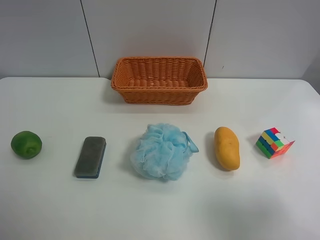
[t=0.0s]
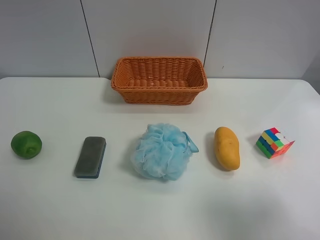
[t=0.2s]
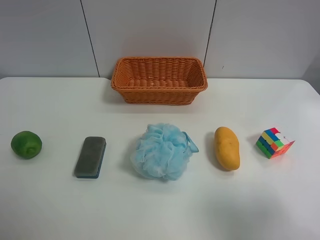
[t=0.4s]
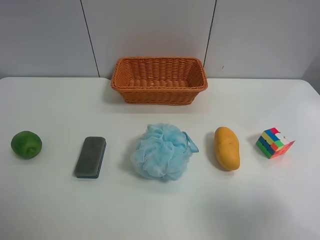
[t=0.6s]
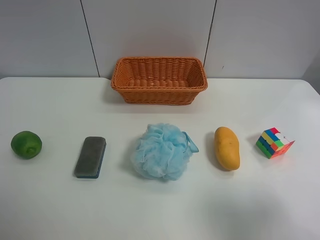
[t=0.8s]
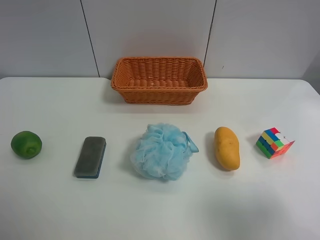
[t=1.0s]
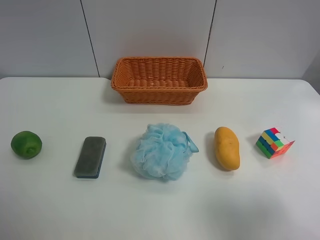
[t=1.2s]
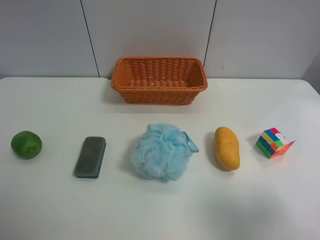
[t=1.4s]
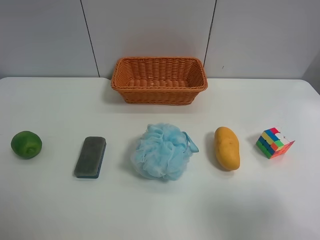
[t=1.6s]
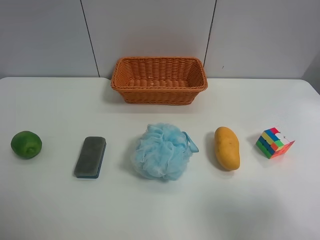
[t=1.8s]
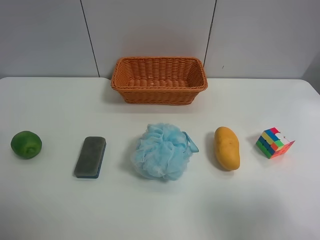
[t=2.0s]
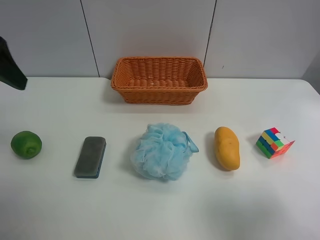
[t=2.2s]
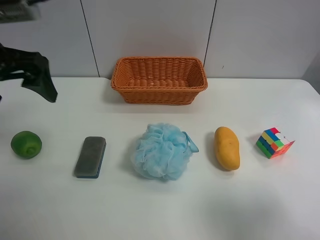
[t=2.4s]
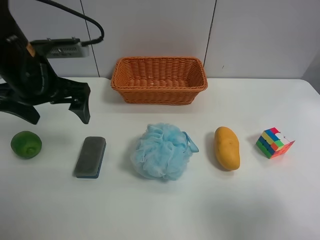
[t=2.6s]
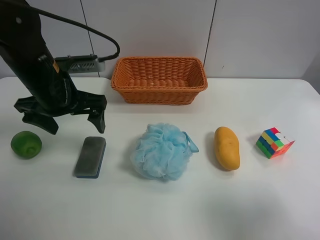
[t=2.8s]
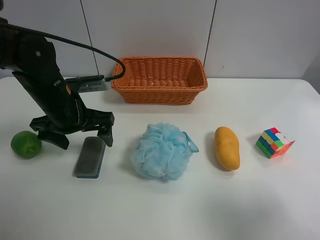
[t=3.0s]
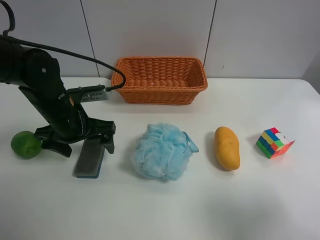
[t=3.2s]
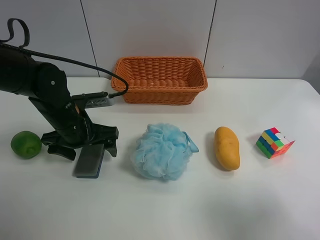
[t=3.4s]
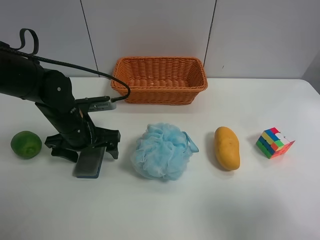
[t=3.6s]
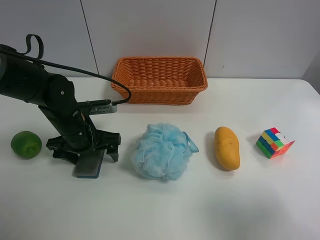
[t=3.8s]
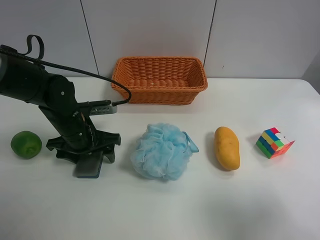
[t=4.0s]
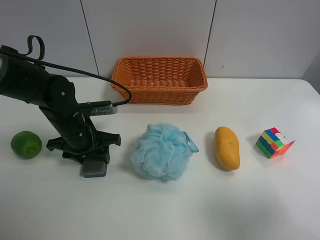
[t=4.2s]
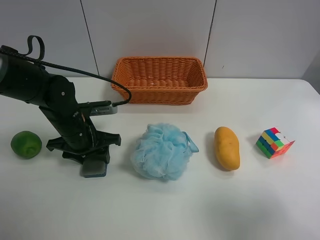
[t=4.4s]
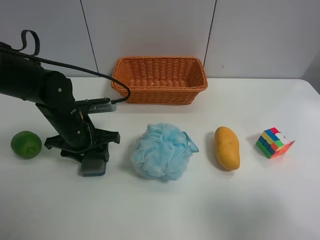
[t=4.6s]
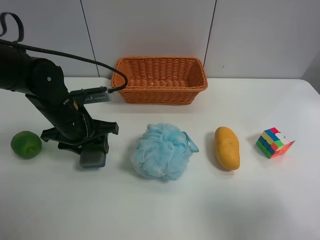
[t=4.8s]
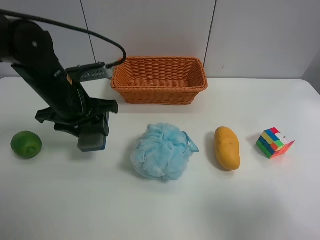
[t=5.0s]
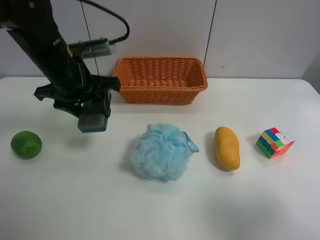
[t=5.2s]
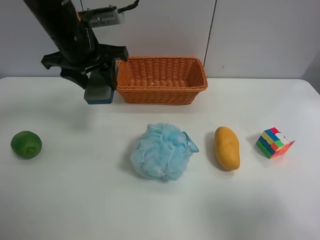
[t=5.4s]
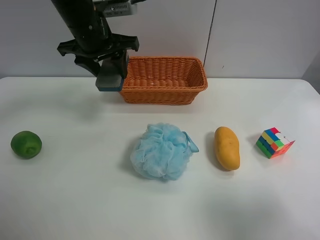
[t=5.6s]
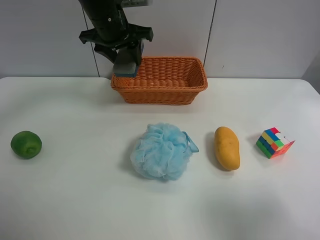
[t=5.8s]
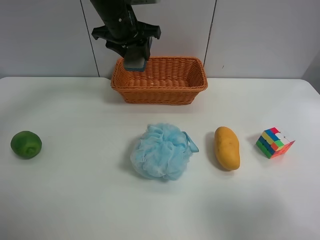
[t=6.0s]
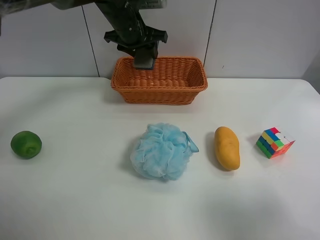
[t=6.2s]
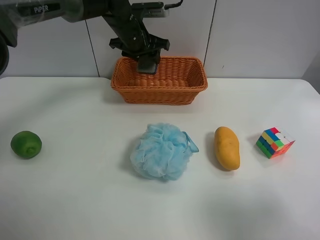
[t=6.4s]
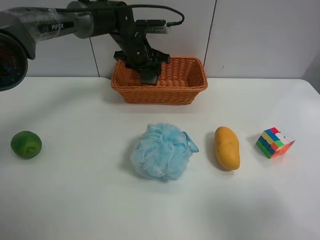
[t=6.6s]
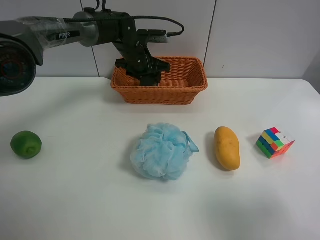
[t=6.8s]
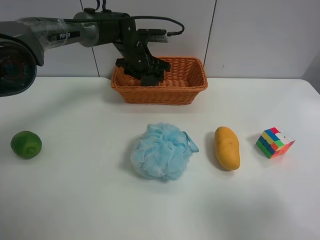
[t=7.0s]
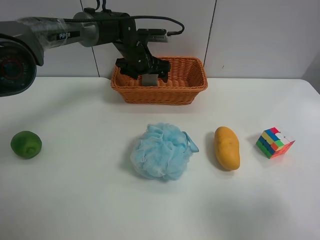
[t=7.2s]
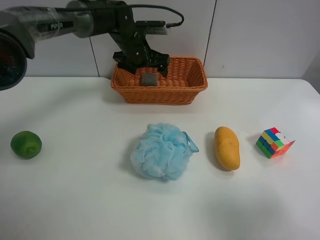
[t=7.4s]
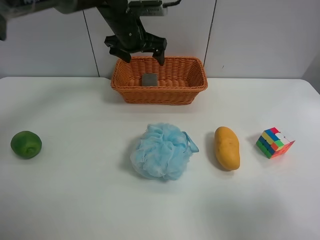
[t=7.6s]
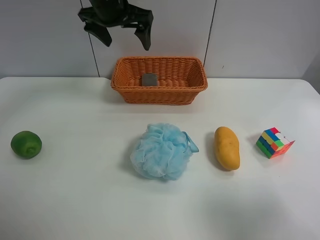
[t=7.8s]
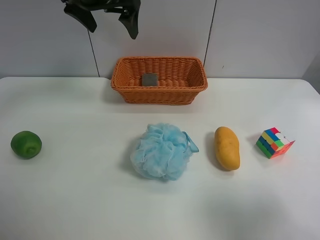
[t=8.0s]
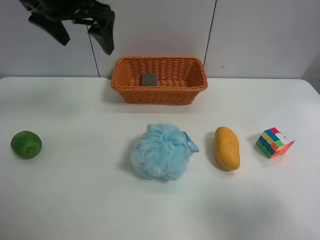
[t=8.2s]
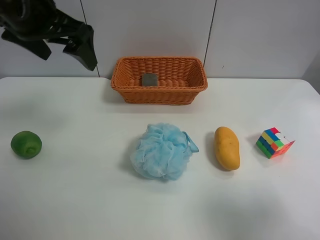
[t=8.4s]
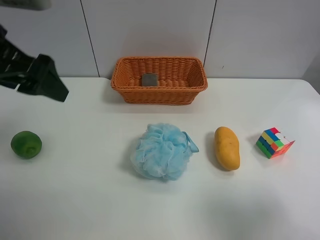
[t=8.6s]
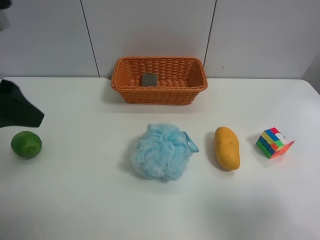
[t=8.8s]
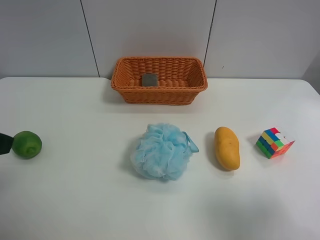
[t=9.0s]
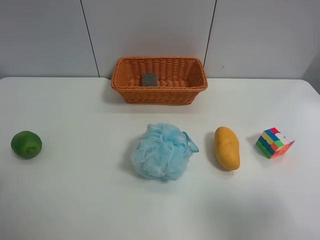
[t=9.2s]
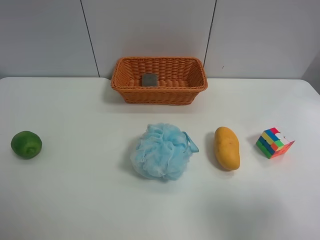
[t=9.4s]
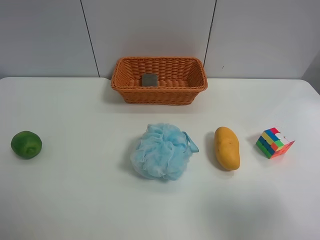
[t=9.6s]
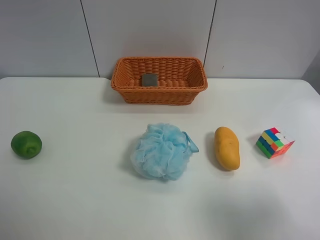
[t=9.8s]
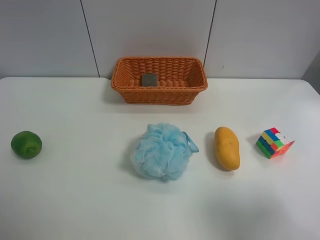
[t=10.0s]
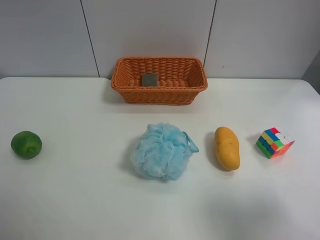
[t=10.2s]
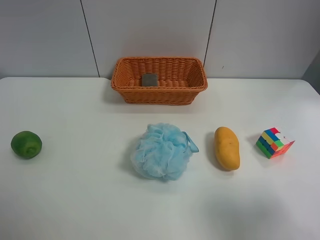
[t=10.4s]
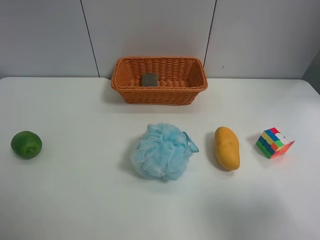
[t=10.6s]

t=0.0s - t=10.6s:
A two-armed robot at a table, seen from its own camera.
Task of the whole recording: use the left gripper to grab items from the table and place them in the basket.
Step, t=0.0s - t=4.2s: Grasp the chalkboard eraser with the left gripper.
Step, t=4.4s - t=7.4s: Place the chalkboard eraser into the basket with the left gripper.
t=1.6s - t=3.0s: The left gripper moves forward, downward and to the right, some 30 cm.
t=3.0s - t=4.6s: The left gripper closes.
t=4.6s - t=6.0s: The left gripper is displaced forward, upward and to the right by roughly 25 cm.
t=6.0s - t=7.6s: The left gripper goes downward and returns, roughly 10 cm each way, and opens up.
t=7.6s - t=9.0s: The left gripper goes roughly 40 cm backward and to the left.

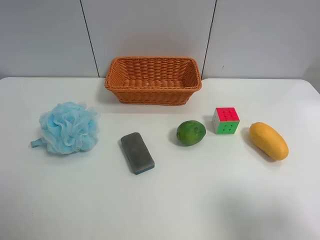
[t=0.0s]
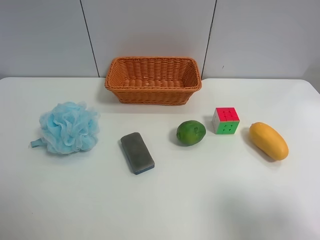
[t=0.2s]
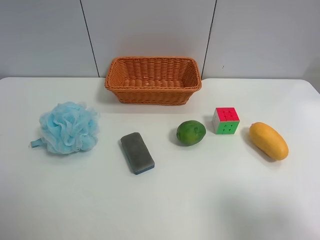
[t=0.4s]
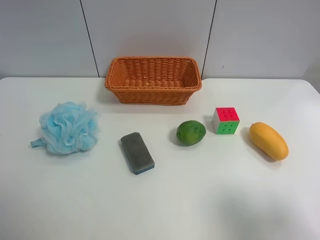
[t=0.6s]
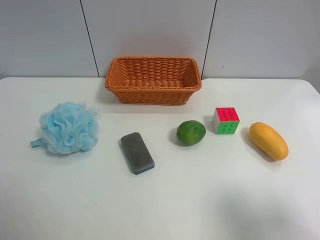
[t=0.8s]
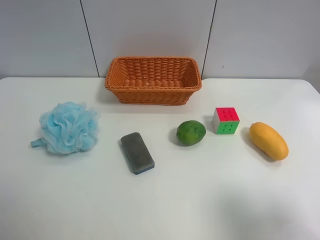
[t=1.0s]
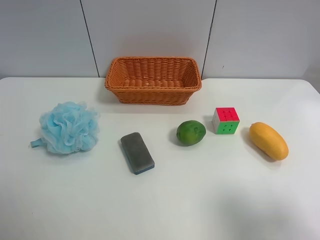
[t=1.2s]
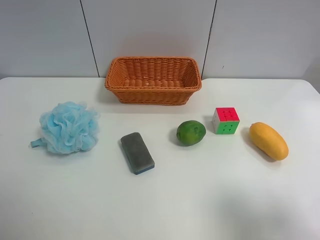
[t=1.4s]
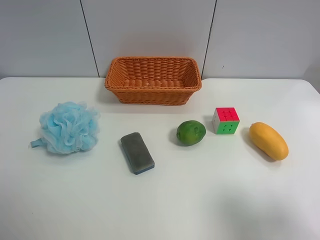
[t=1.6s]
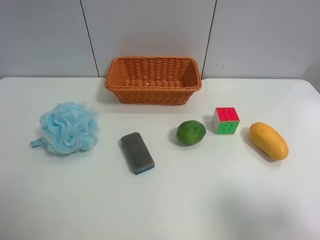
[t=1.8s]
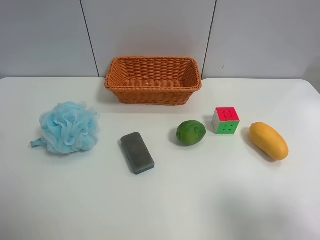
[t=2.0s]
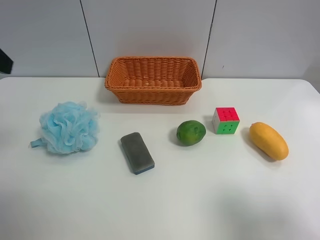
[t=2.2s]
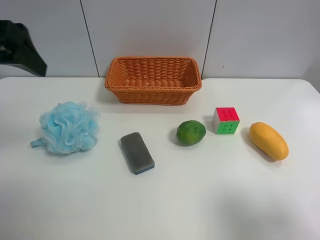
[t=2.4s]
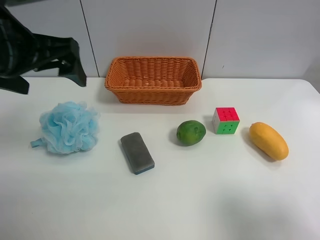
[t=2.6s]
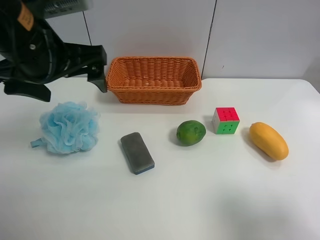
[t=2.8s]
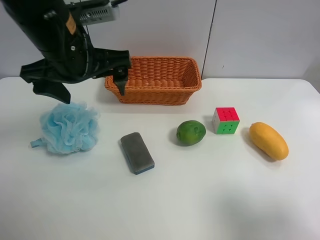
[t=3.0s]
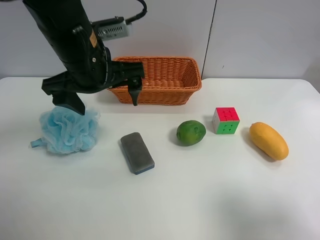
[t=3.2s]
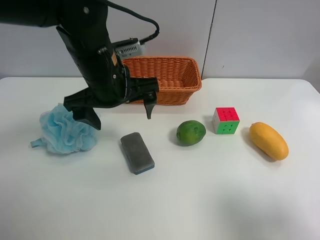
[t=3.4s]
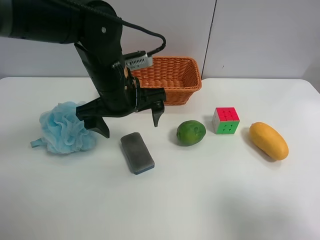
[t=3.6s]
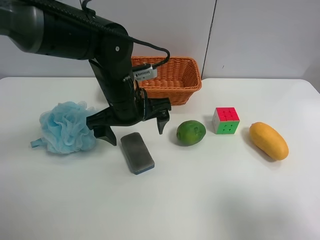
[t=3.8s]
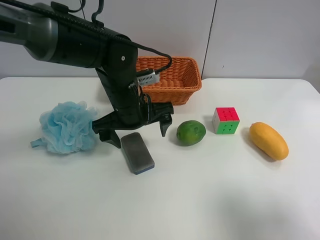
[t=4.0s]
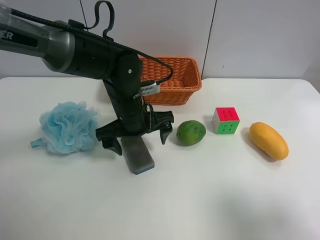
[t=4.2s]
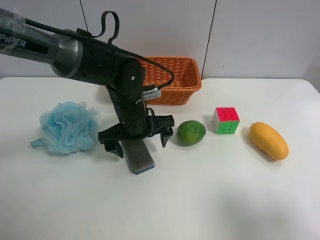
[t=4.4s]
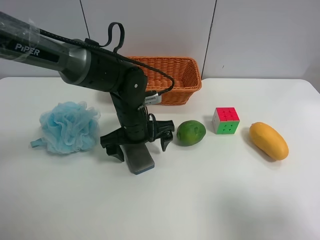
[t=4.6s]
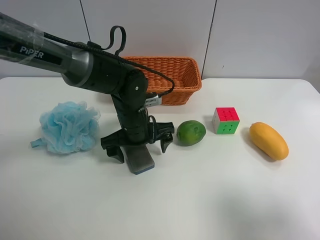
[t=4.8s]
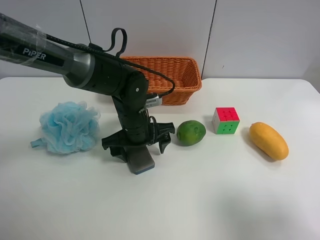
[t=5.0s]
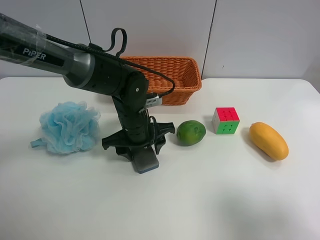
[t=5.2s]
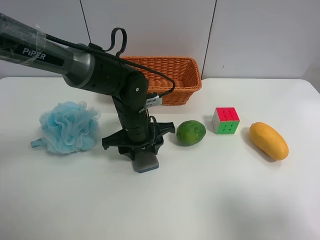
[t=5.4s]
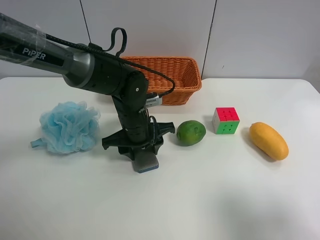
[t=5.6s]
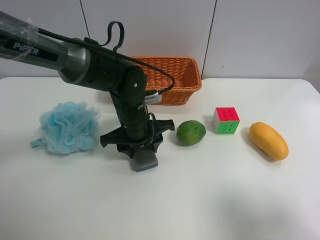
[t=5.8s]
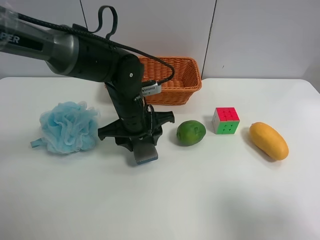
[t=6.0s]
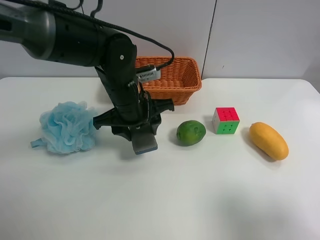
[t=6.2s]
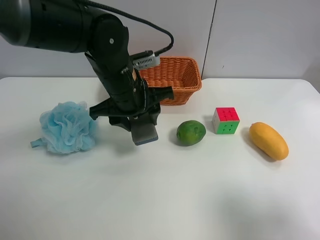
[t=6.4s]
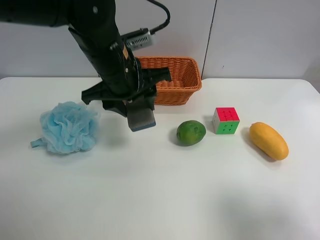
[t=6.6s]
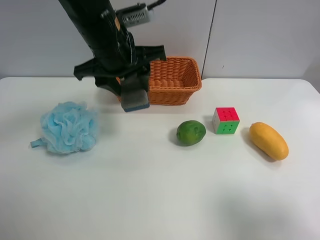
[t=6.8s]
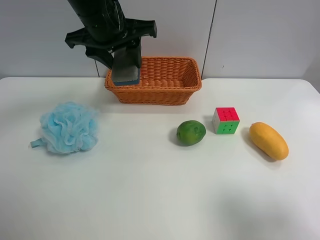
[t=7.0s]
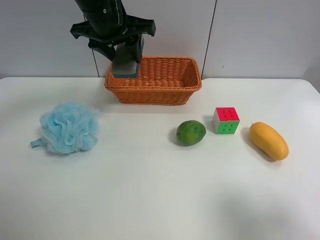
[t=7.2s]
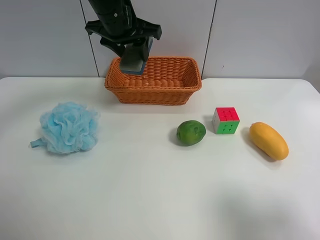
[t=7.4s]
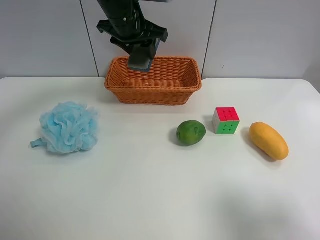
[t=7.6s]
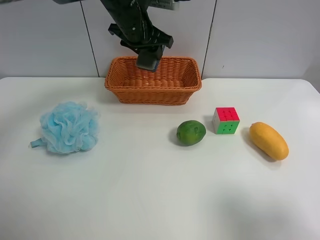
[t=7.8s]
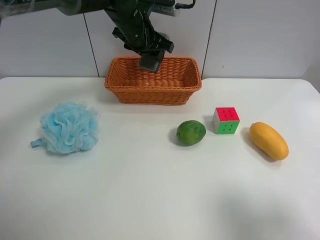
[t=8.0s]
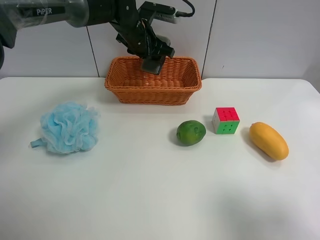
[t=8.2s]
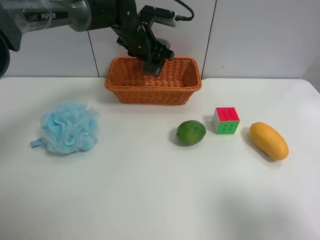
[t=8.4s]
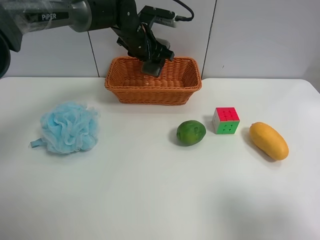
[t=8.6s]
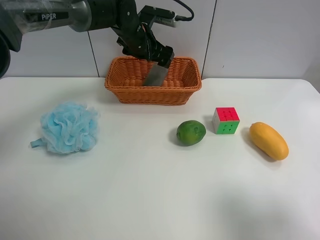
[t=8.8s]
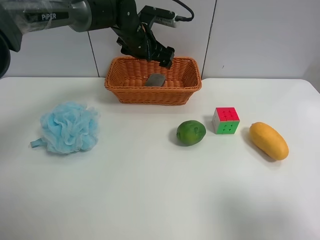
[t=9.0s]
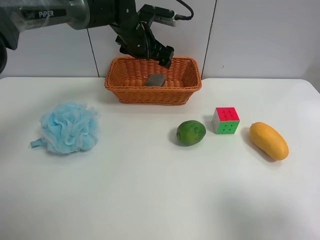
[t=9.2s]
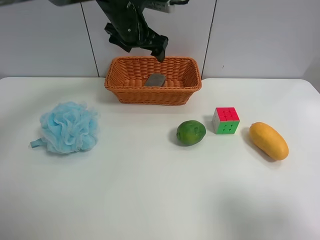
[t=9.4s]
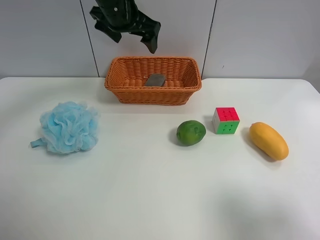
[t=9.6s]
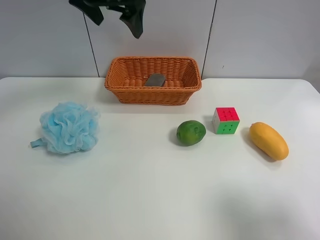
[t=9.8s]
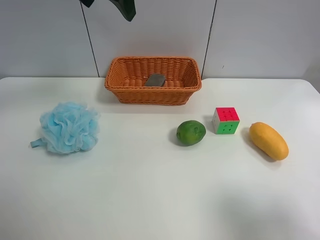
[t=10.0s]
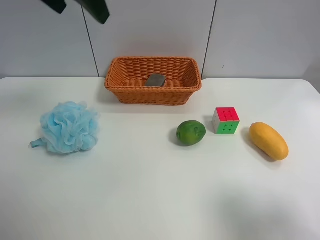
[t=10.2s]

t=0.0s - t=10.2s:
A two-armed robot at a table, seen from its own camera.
Task of the whole recording: use the left gripper to grab items from the table and place them in the basket.
Step, t=0.0s - t=5.4s: Grasp the chalkboard eraser with the left gripper.
Step, t=5.6s - t=8.8s: Place the chalkboard eraser into the basket with the left gripper.
t=1.4s - t=3.0s: The left gripper heads forward and to the right, covering about 30 cm.
t=3.0s - t=4.4s: The left gripper moves downward and to the right, about 15 cm.
t=4.4s - t=5.8s: The left gripper closes.
t=5.8s - t=7.2s: The left gripper travels upward by approximately 20 cm.
t=7.2s - t=8.8s: The left gripper moves forward and downward, roughly 15 cm, and opens up.
t=8.8s - t=10.2s: The left gripper goes roughly 30 cm upward, backward and to the left.

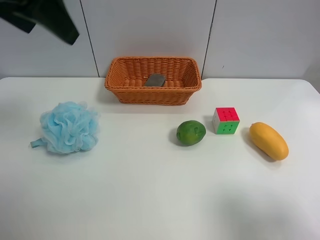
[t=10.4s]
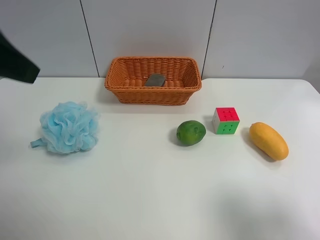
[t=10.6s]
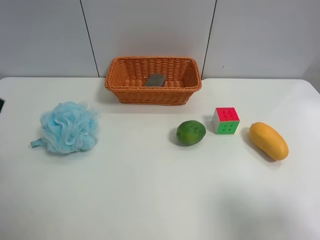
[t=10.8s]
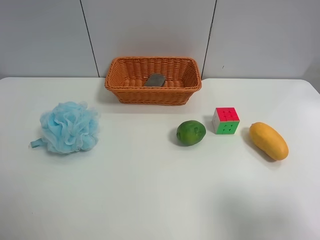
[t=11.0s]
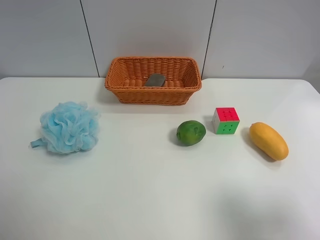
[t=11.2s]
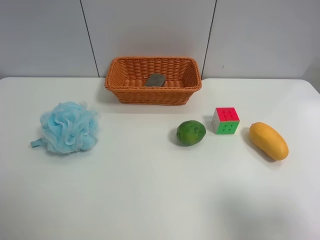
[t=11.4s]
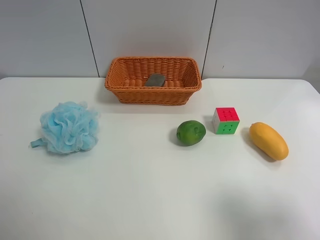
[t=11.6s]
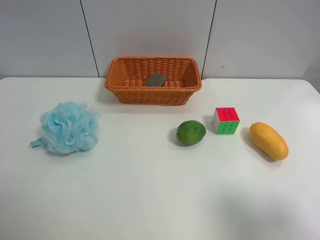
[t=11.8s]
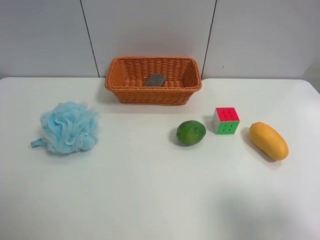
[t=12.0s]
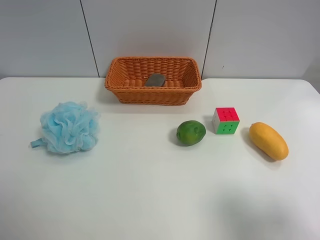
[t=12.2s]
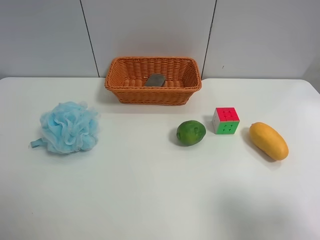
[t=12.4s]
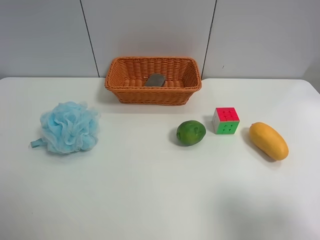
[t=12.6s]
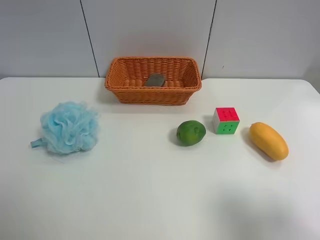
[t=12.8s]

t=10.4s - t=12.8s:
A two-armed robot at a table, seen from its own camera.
Task of the whole recording: use the left gripper to grab items from the table and place them in the basket.
t=10.4s - t=11.6s: The left gripper goes roughly 25 cm backward, downward and to the left.
